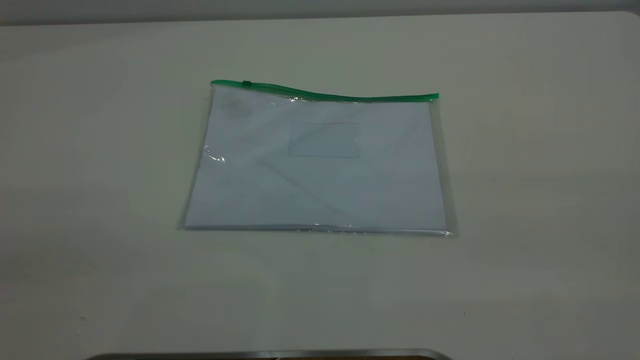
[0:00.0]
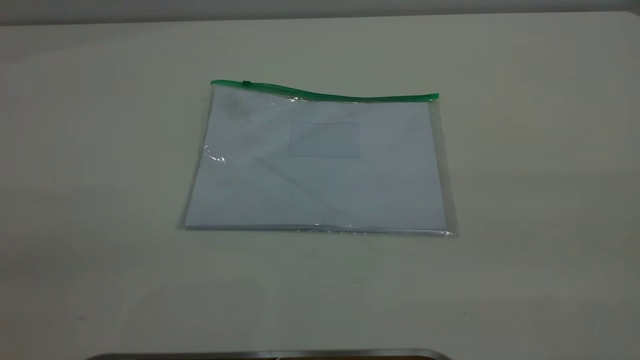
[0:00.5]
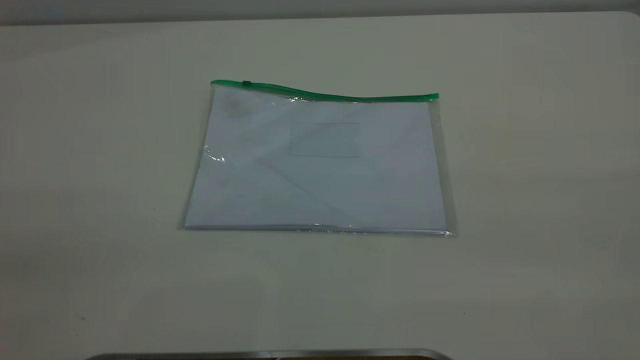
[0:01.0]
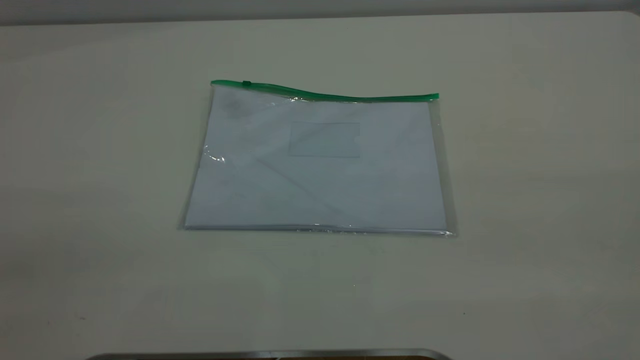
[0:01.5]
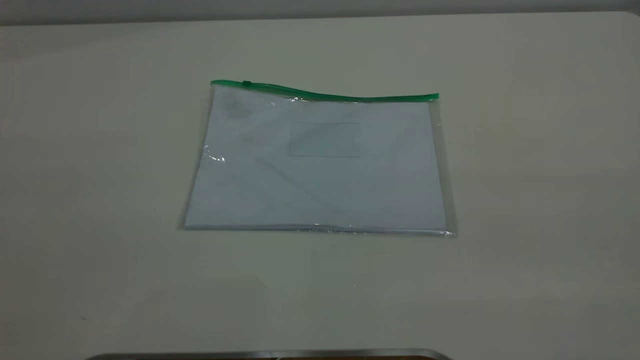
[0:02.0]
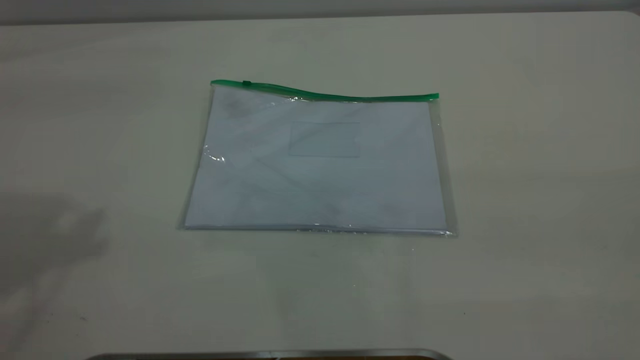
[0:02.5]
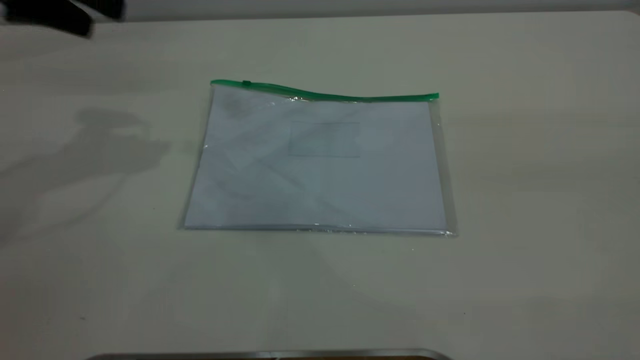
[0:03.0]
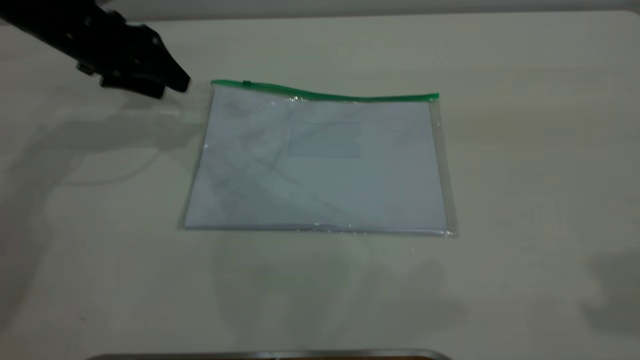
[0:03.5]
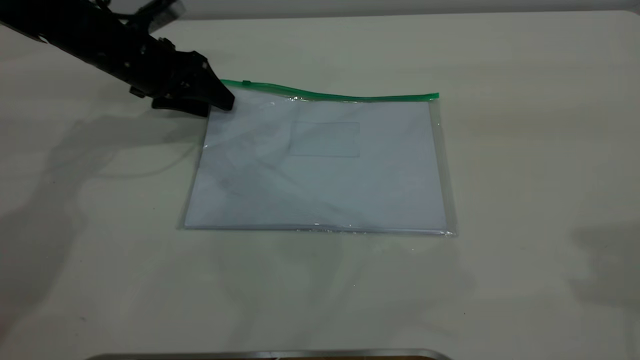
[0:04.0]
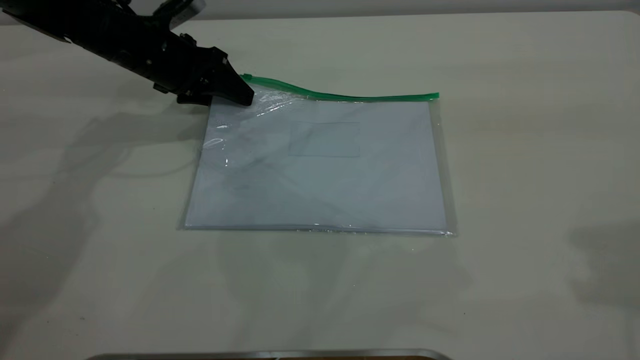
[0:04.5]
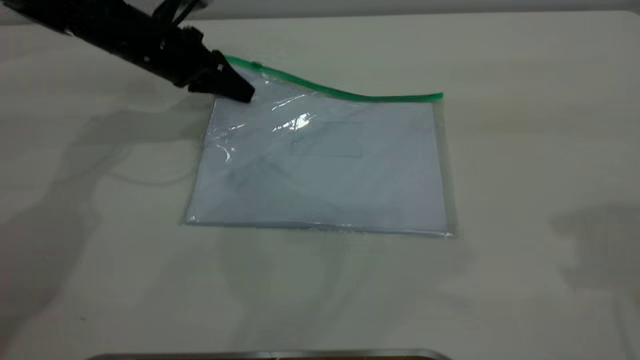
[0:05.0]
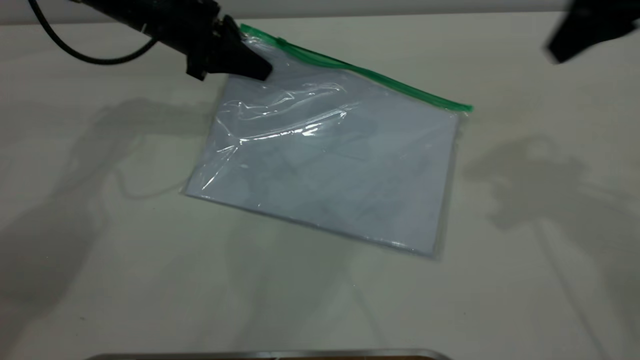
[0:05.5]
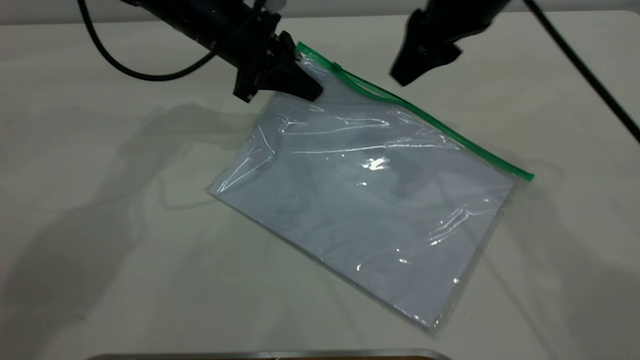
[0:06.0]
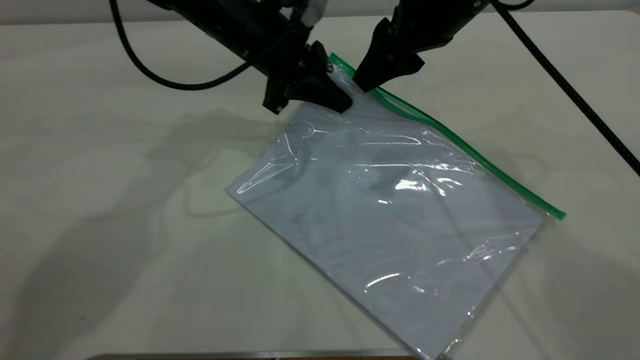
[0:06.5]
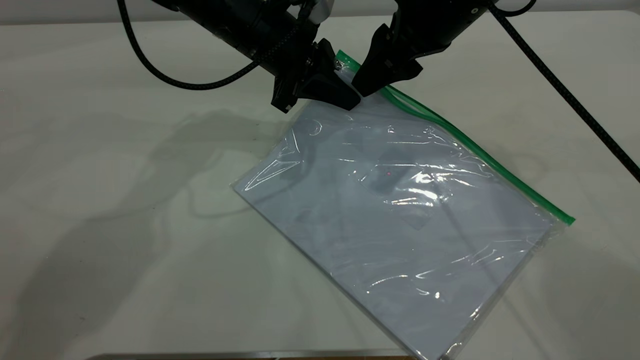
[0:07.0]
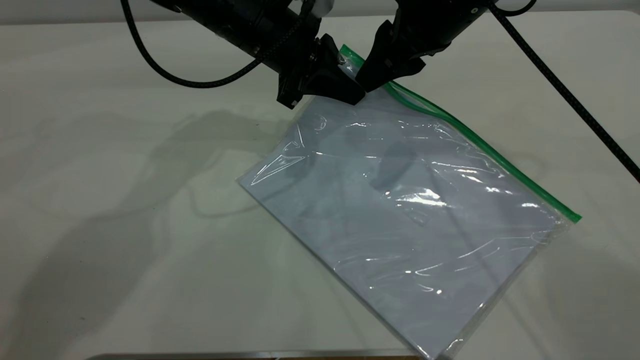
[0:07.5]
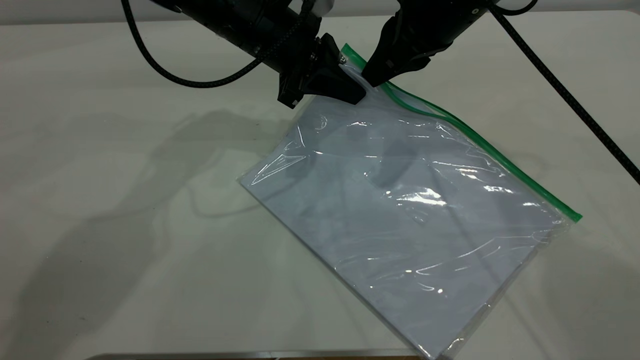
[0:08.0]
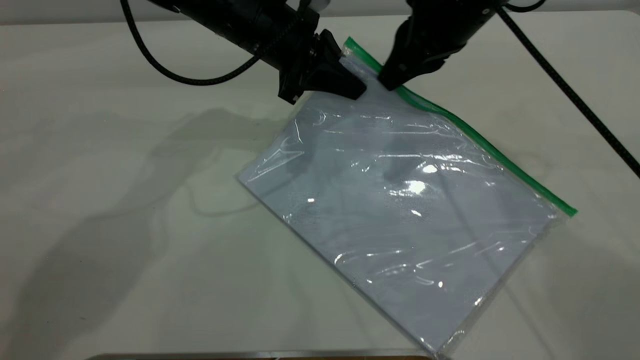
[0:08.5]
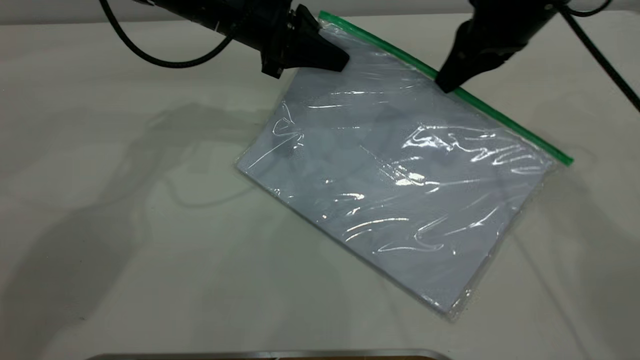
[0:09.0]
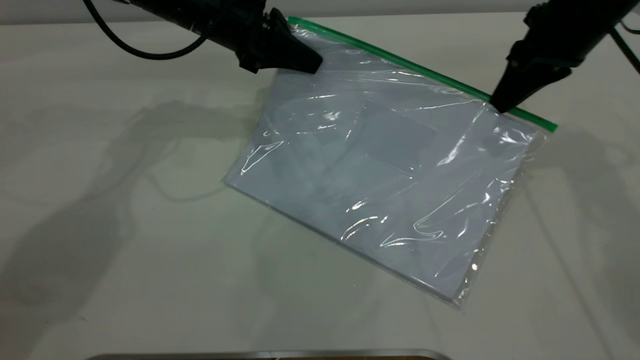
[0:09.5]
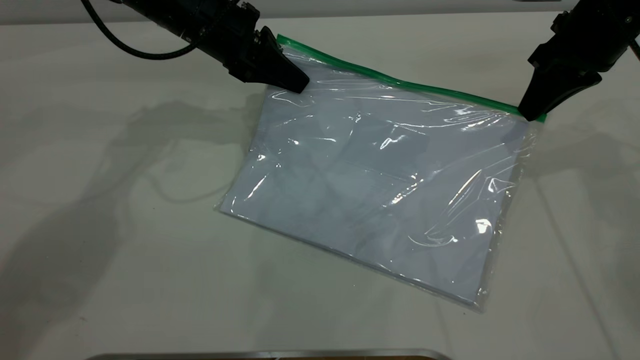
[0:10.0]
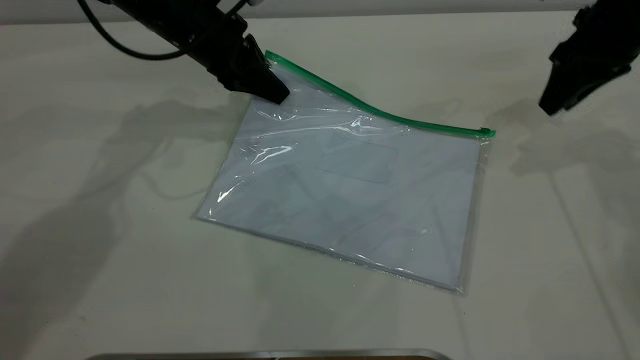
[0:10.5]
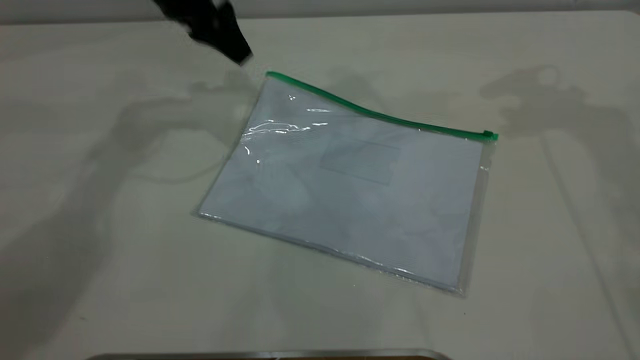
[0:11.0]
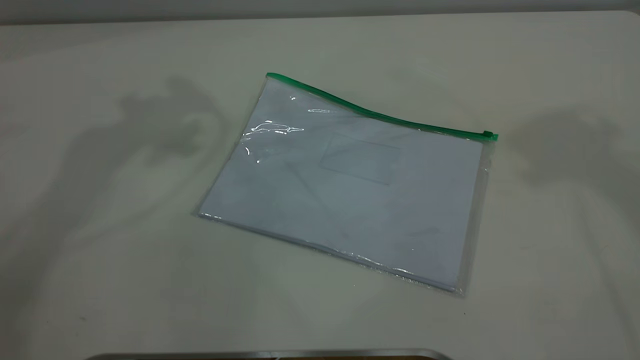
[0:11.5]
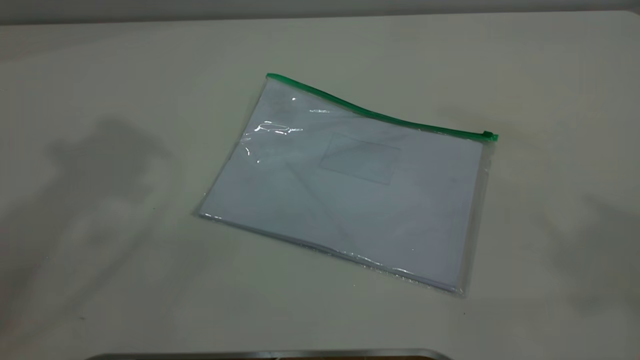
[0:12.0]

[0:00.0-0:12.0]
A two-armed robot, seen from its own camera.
Step, 0:00.0 to 0:05.5: Pick up the transparent plastic bag with the left gripper.
Step, 0:06.0 to 0:10.0: Pulling up the zipper on the transparent plastic bag with the right gripper to close it.
0:02.0 to 0:04.0: The left gripper shifts approximately 50 cm forward and downward.
0:04.0 to 0:06.0: The left gripper goes about 10 cm to the right, and closes its fingers; the right gripper moves forward, to the left and downward, roughly 30 cm.
0:06.0 to 0:08.0: The right gripper closes its fingers.
0:08.0 to 0:10.0: The right gripper travels to the right by roughly 15 cm. Meanwhile the left gripper travels to the left by some 5 cm.
0:10.0 to 0:12.0: The right gripper heads upward and backward, covering roughly 50 cm, and opens, while the left gripper shifts approximately 40 cm upward, and opens its fingers.

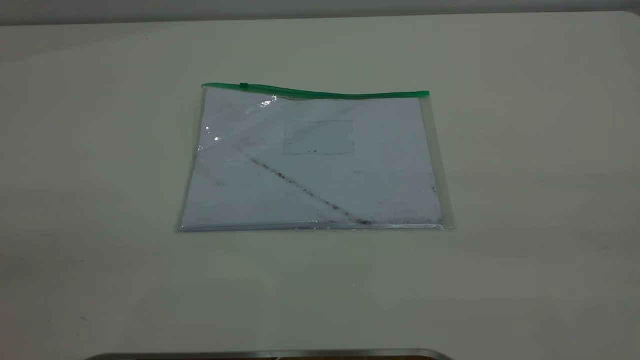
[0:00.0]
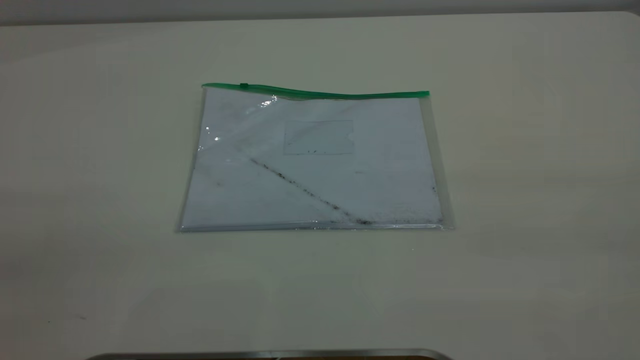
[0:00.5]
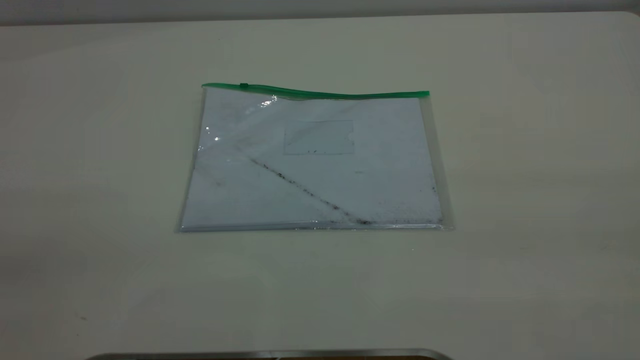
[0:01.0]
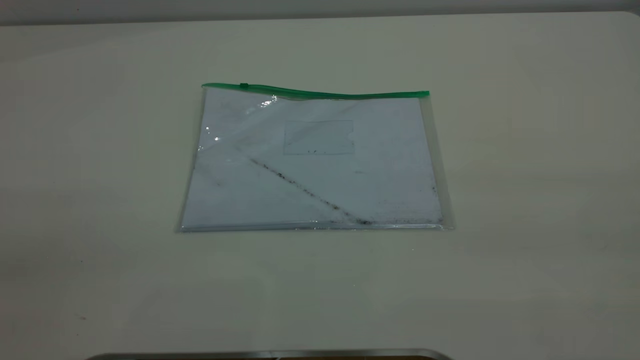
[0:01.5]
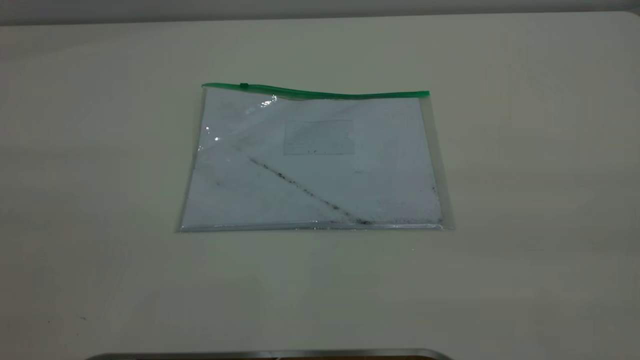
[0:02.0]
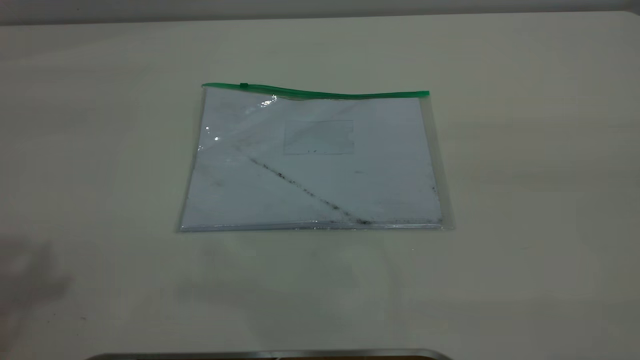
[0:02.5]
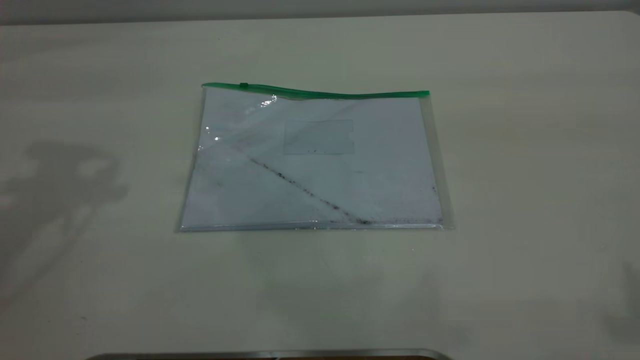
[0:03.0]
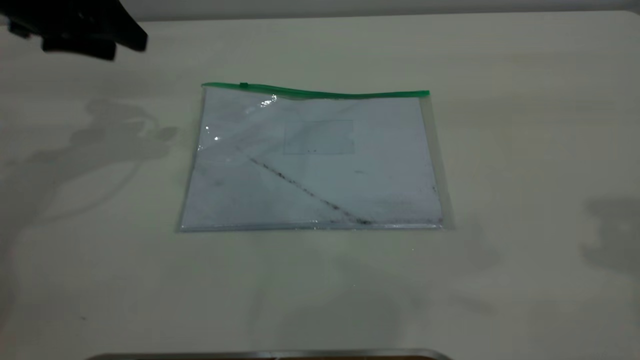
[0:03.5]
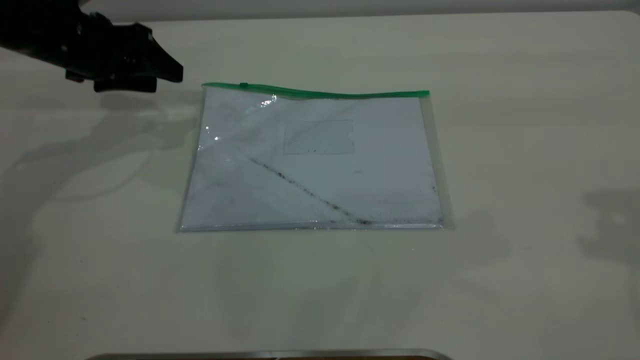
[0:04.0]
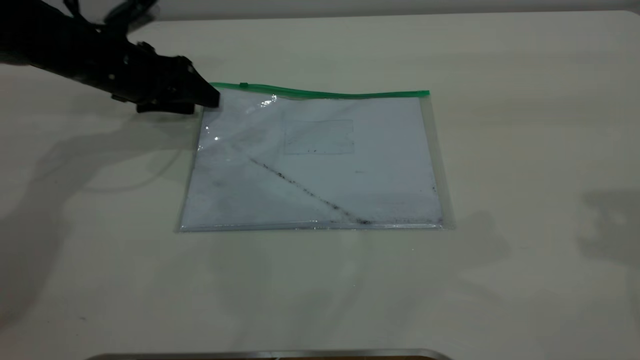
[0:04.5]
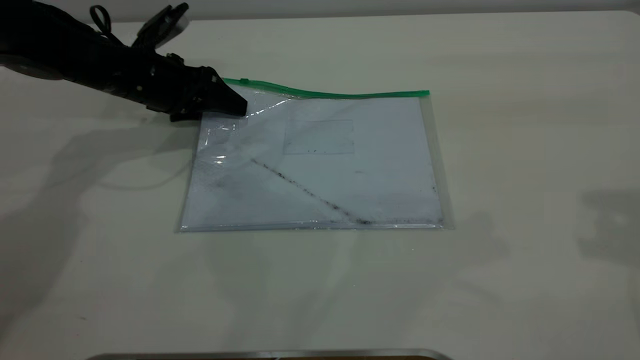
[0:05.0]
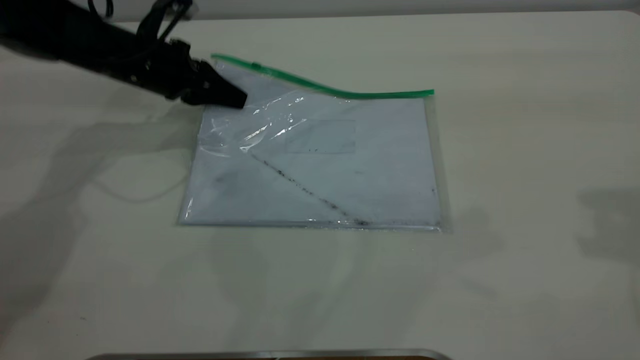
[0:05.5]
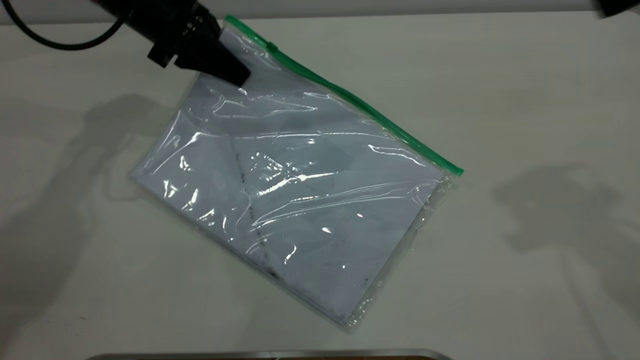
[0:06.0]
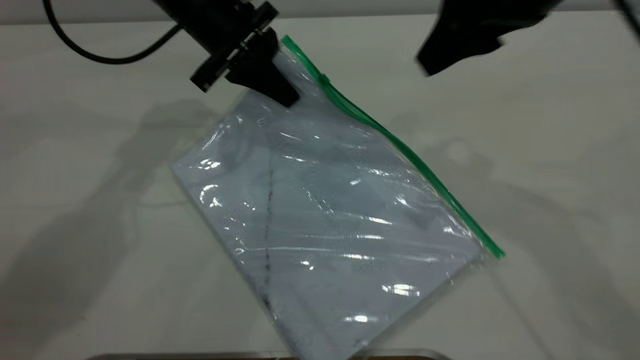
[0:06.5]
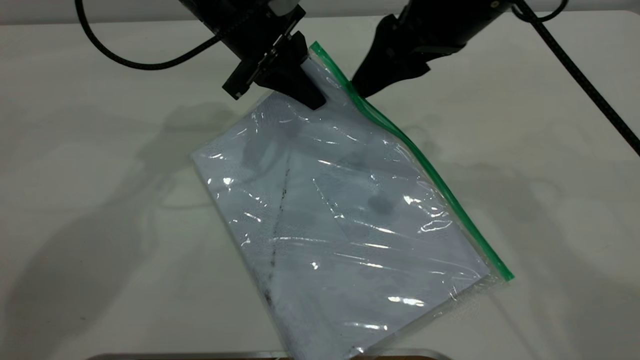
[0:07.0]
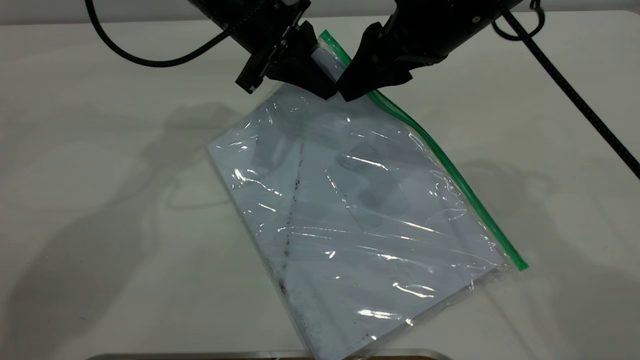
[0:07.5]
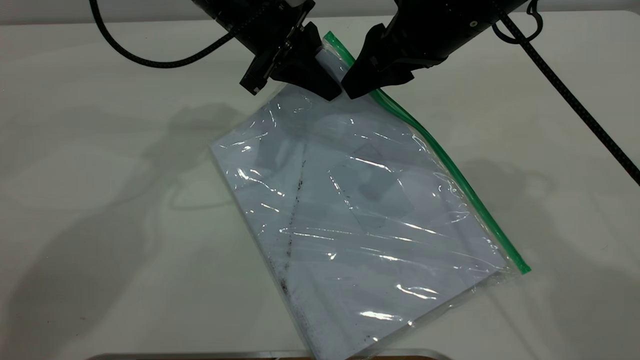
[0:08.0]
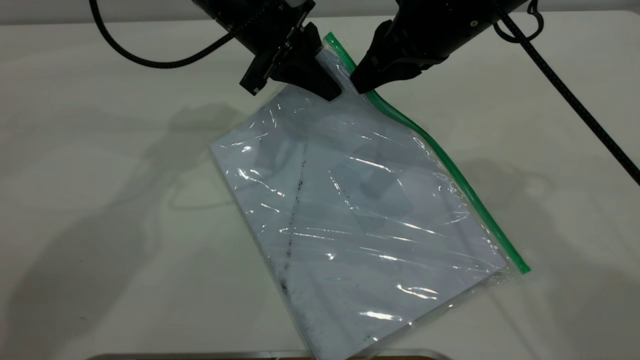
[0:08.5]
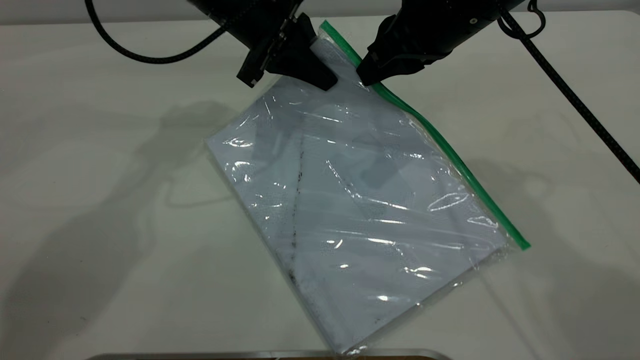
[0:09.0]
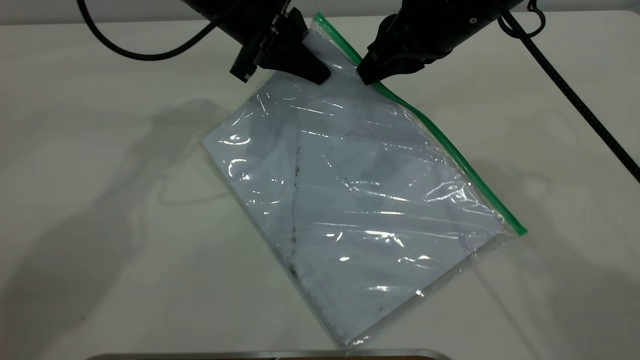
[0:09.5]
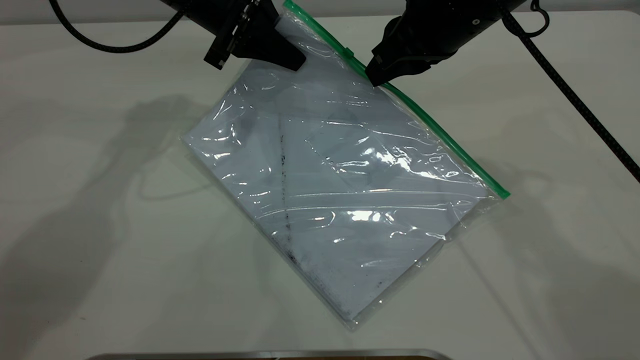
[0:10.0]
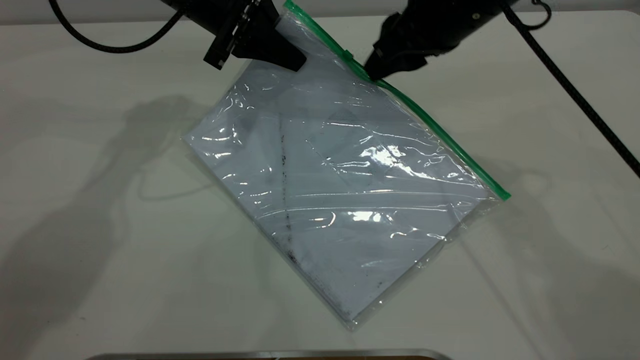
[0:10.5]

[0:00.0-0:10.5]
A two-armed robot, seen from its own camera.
Step, 0:00.0 to 0:05.5: Pick up the transparent plastic bag with the left gripper.
0:02.0 to 0:04.0: The left gripper shifts about 50 cm forward and downward.
0:04.0 to 0:06.5: The left gripper travels to the right by about 15 cm, and closes. Meanwhile the right gripper goes approximately 20 cm to the left, forward and downward.
0:06.5 to 0:08.5: The right gripper moves downward, approximately 5 cm, and closes its fingers.
0:08.5 to 0:10.5: The left gripper ends up about 5 cm from where it was. Meanwhile the right gripper opens its fingers.
